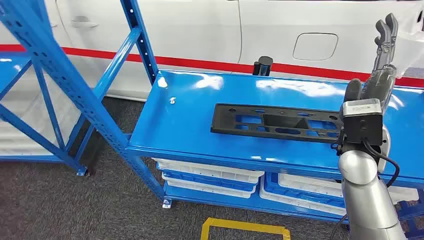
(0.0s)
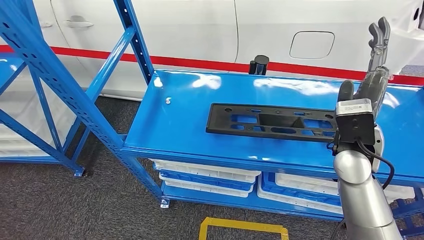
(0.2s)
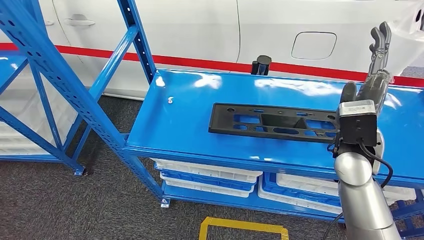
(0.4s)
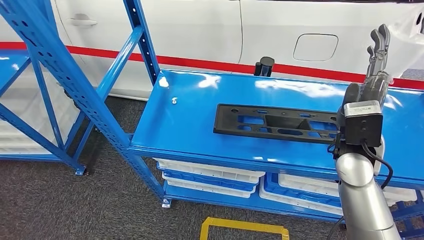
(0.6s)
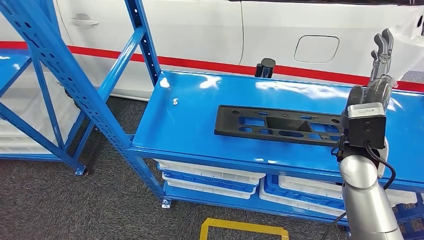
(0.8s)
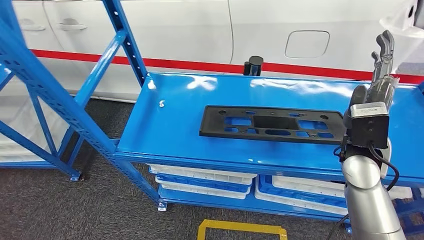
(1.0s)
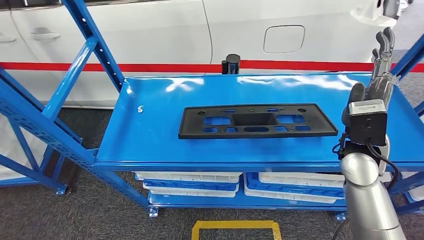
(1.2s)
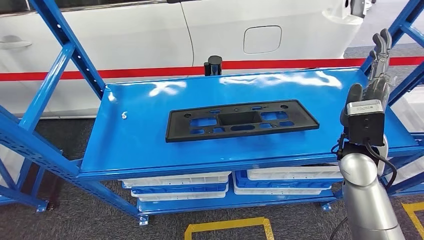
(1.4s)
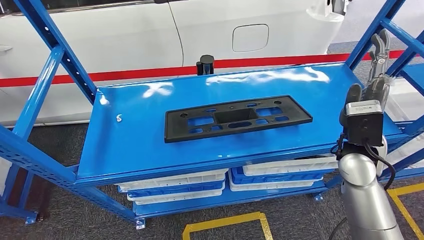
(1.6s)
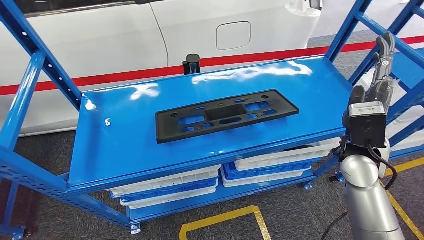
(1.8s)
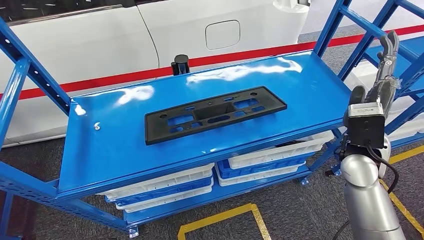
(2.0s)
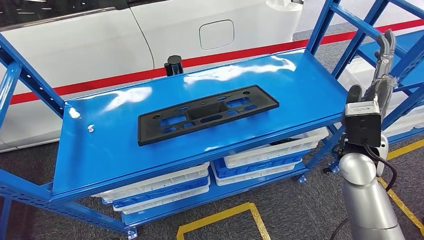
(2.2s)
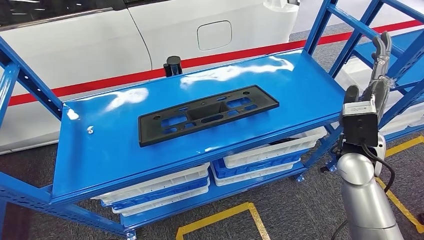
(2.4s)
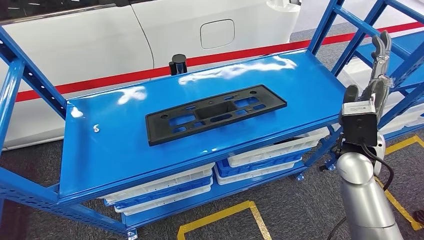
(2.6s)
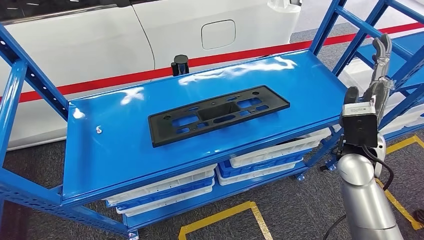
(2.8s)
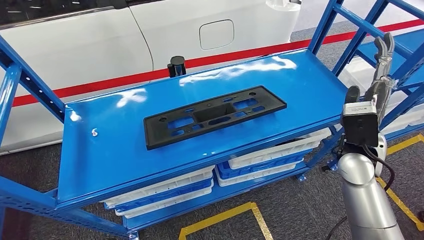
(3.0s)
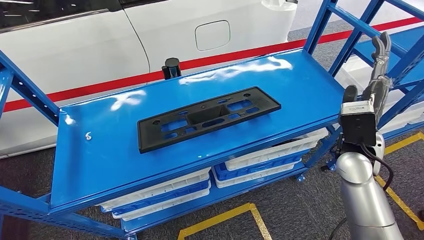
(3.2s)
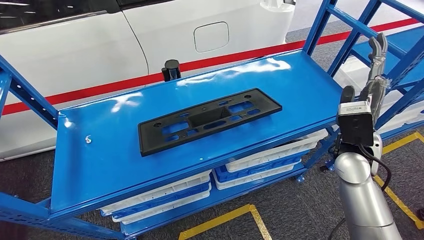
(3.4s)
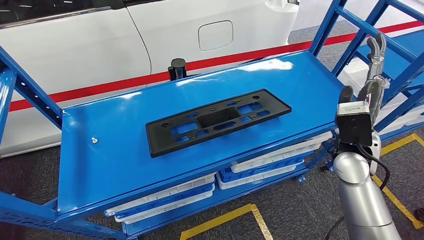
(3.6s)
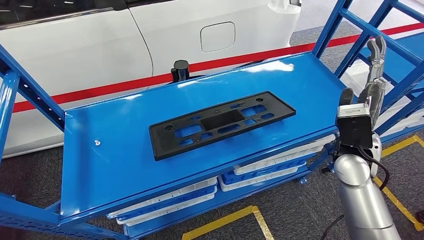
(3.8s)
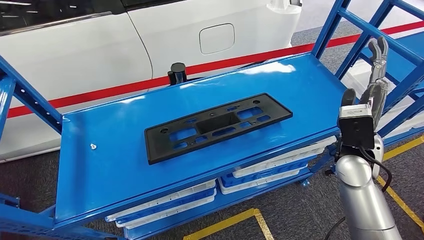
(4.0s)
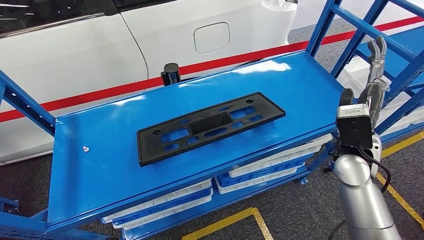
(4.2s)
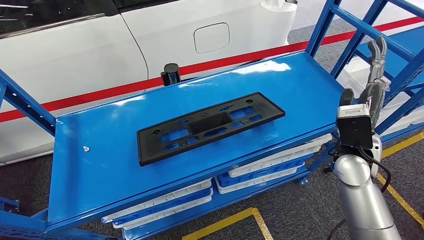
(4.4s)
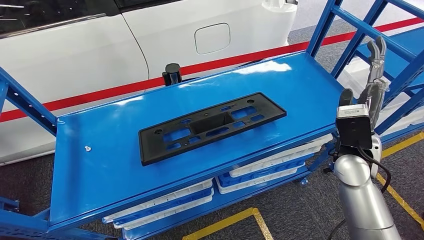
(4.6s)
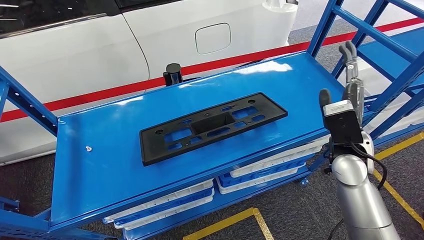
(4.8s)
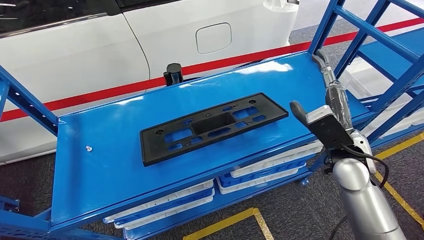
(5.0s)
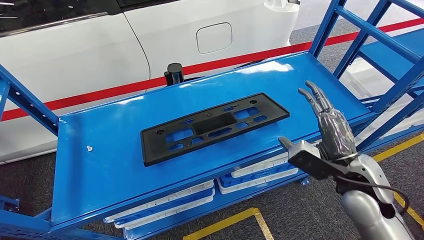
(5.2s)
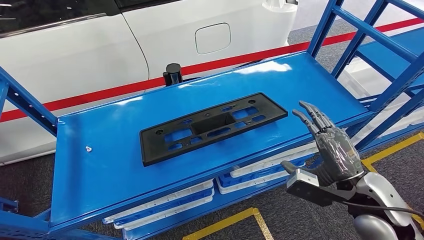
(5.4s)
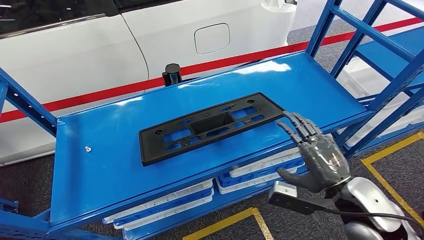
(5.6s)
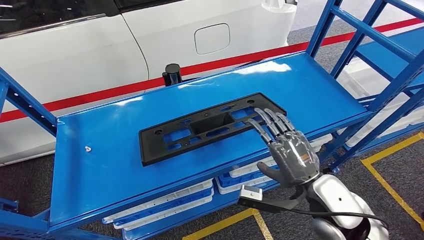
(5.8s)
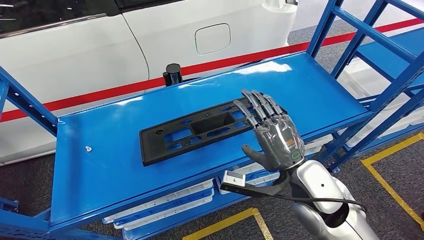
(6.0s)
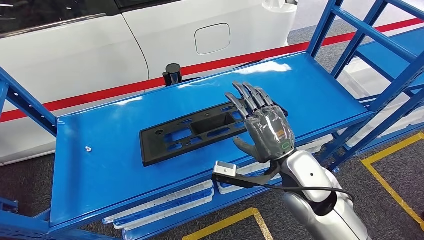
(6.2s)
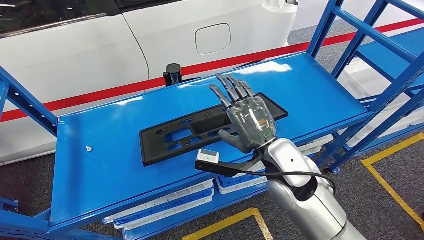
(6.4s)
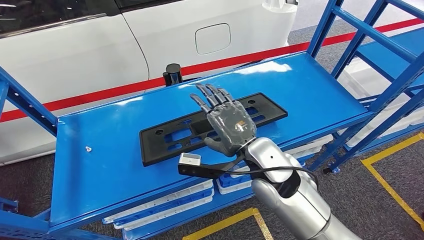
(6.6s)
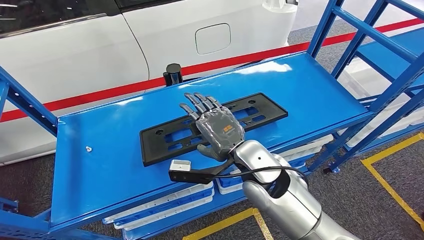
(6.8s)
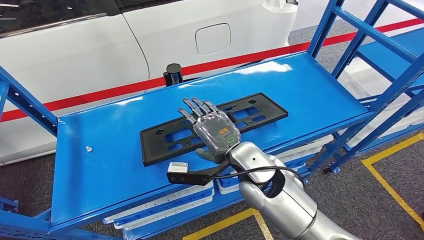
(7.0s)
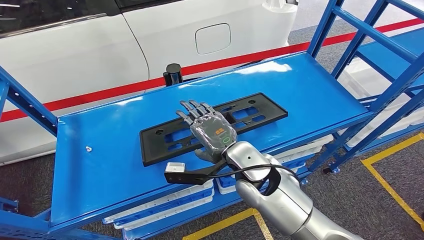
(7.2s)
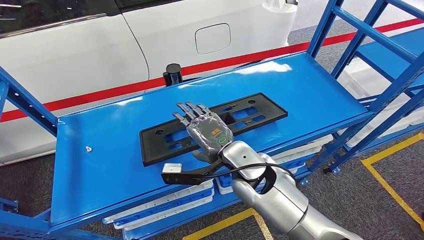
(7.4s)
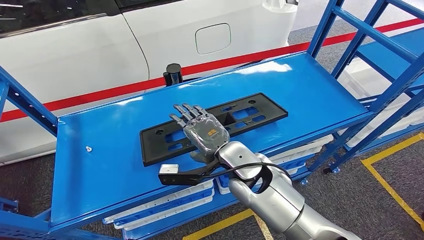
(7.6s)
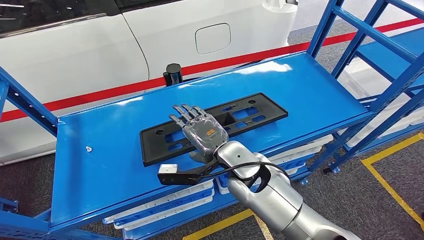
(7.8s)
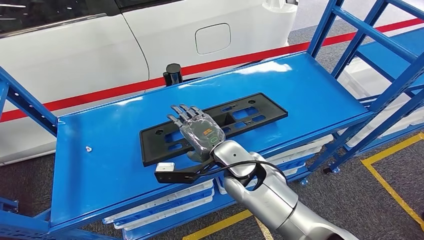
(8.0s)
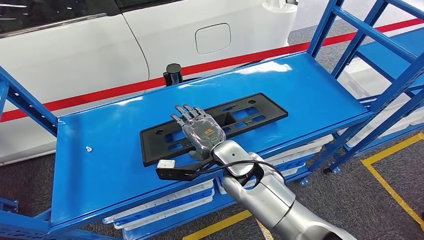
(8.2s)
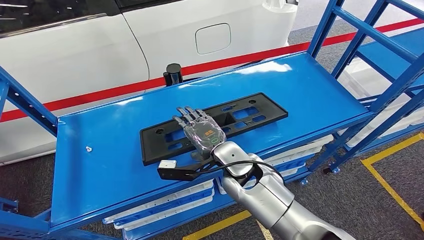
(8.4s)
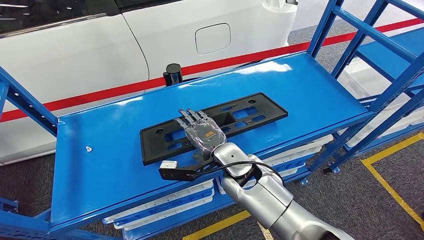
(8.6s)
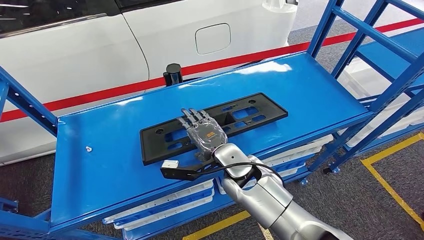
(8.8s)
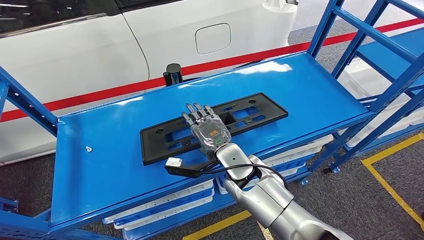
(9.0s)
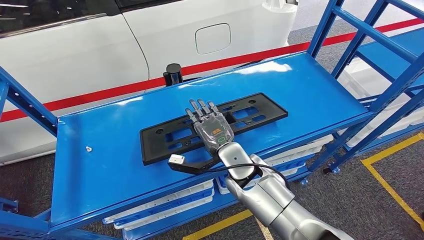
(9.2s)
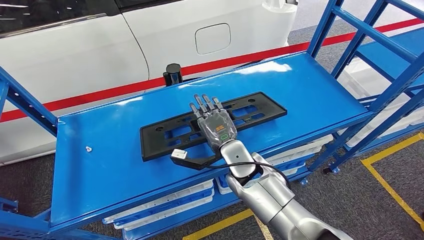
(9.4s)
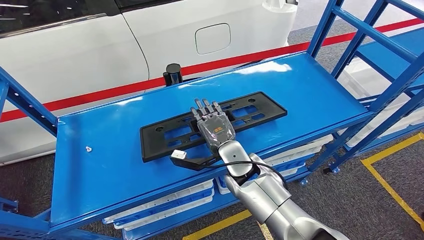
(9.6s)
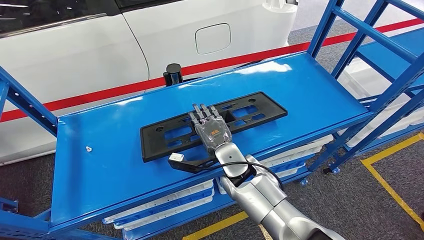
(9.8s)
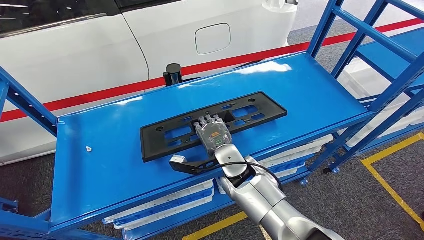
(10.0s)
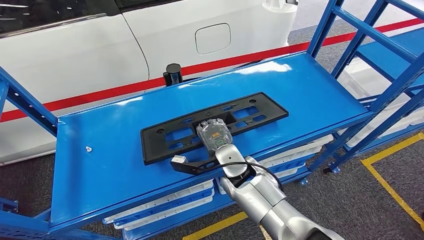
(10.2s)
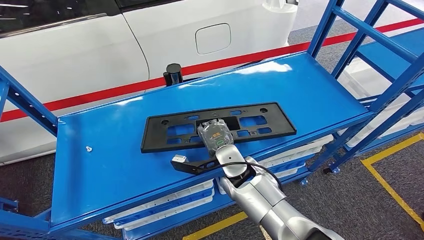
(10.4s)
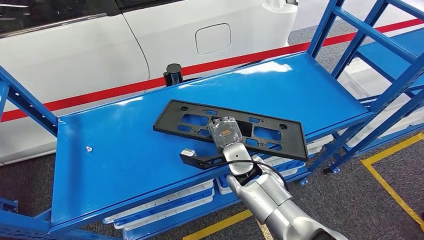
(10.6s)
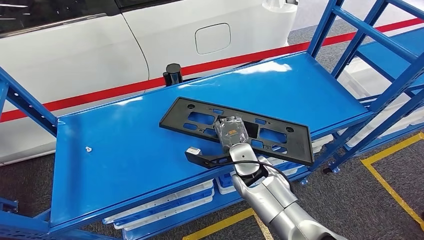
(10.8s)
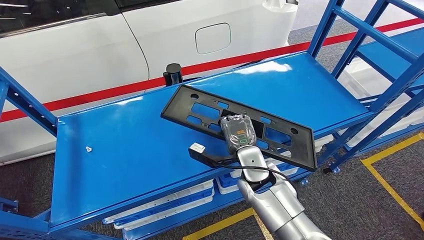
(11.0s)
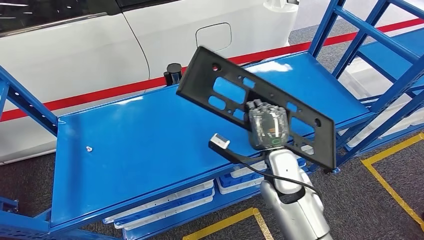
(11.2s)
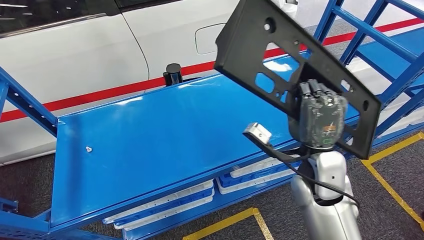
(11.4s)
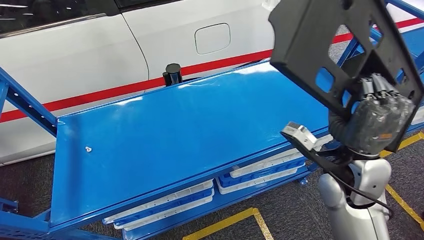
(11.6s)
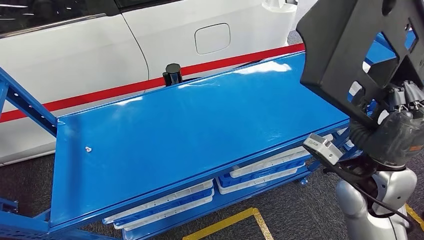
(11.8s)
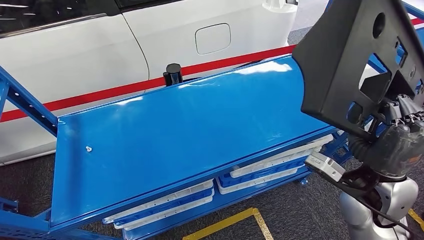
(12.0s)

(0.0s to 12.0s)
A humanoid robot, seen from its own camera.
4.4s - 6.0s: The right hand moves to the left and backward, approximately 15 cm; the left hand travels to the right by roughly 10 cm.
6.0s - 7.6s: The right hand goes some 15 cm to the left.
7.6s - 9.0s: There are only small adjustments of the hands.
9.0s - 10.4s: The hands stay close to where they were, moving slightly.

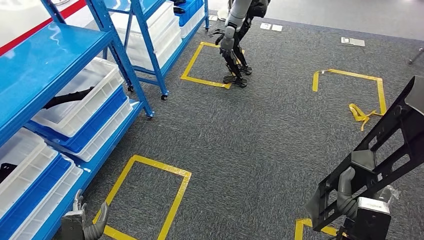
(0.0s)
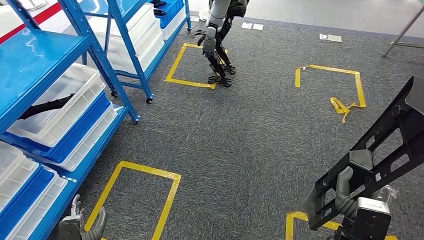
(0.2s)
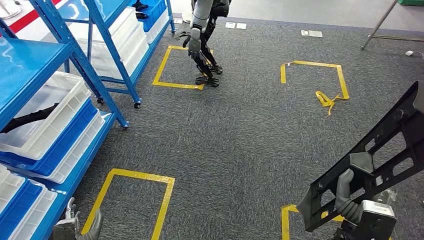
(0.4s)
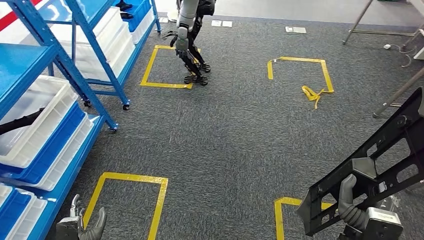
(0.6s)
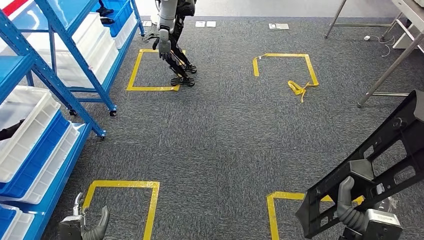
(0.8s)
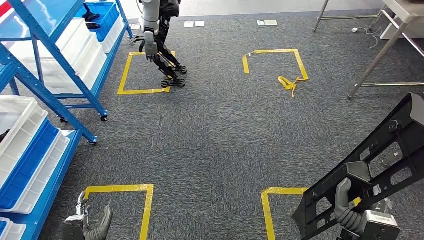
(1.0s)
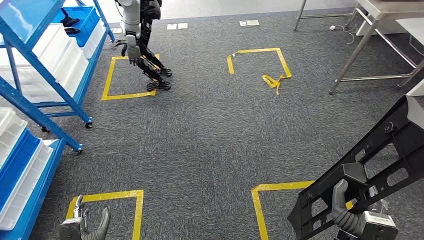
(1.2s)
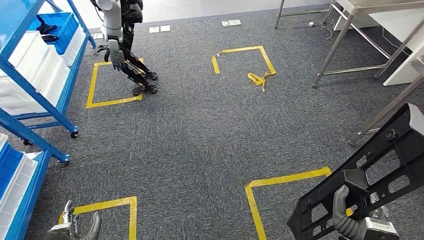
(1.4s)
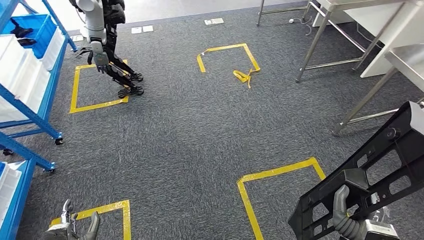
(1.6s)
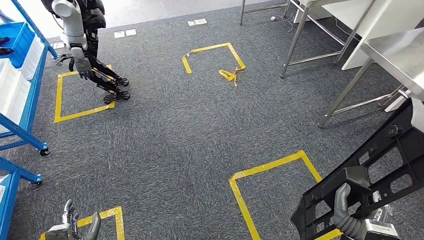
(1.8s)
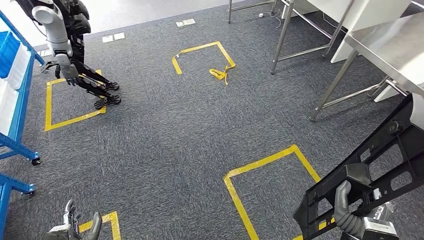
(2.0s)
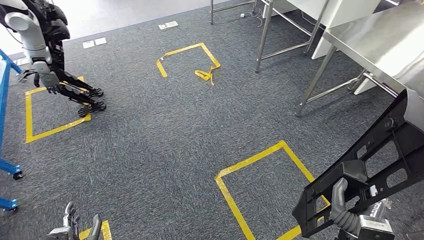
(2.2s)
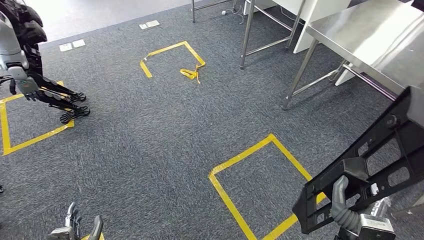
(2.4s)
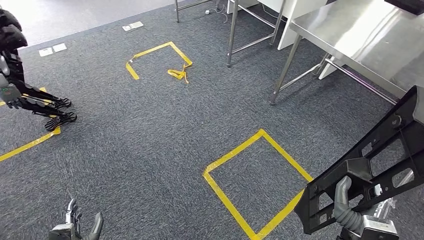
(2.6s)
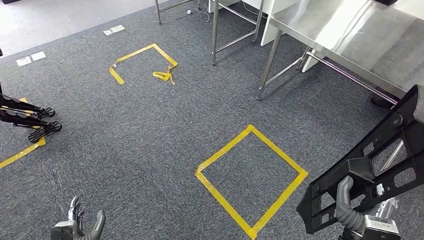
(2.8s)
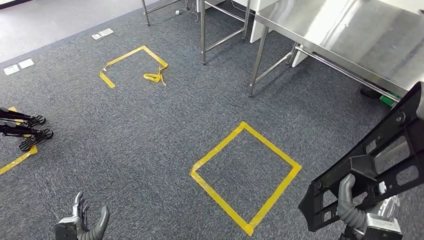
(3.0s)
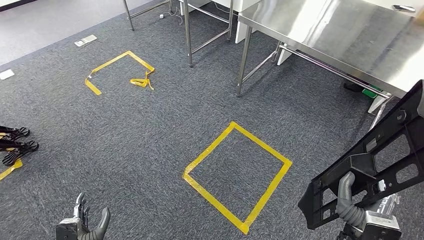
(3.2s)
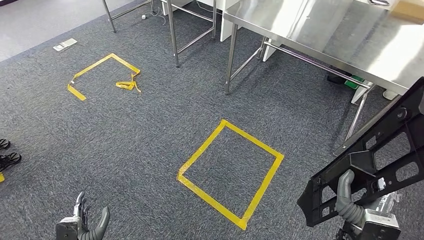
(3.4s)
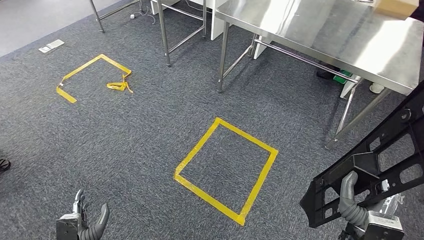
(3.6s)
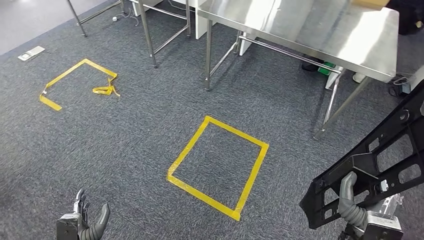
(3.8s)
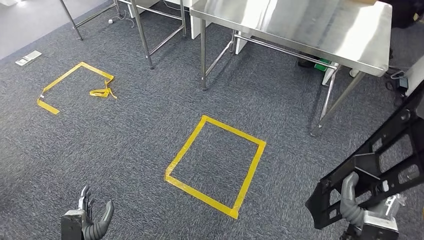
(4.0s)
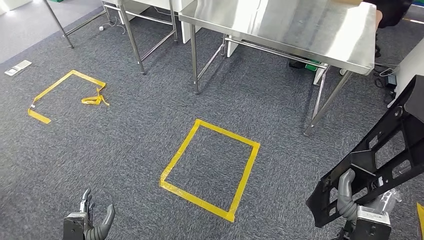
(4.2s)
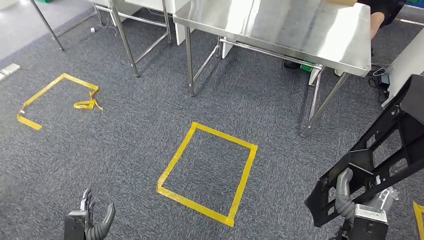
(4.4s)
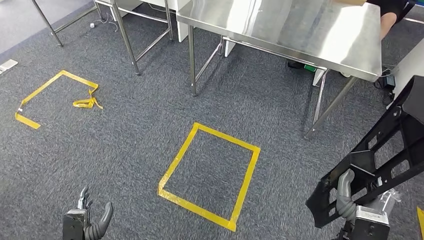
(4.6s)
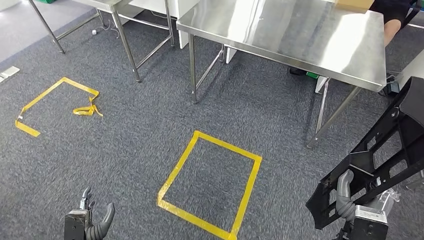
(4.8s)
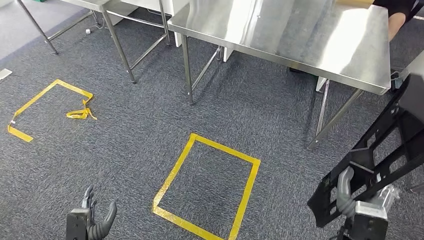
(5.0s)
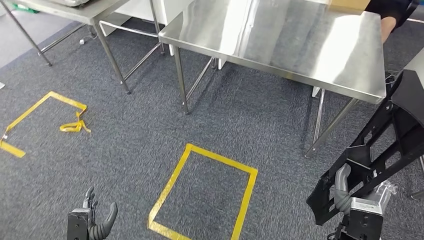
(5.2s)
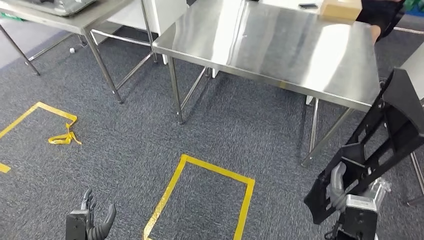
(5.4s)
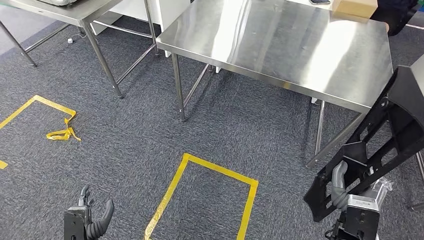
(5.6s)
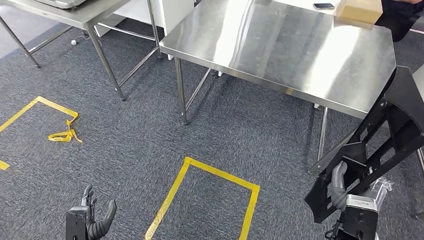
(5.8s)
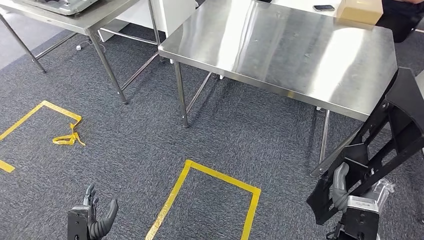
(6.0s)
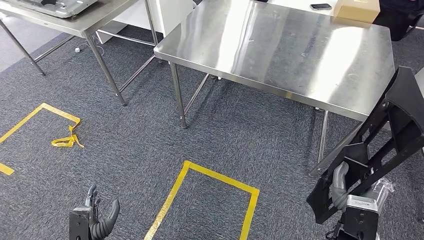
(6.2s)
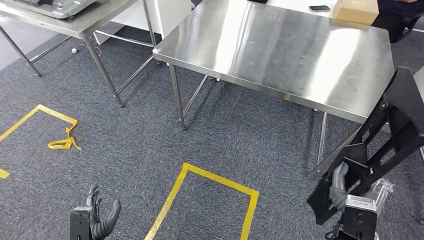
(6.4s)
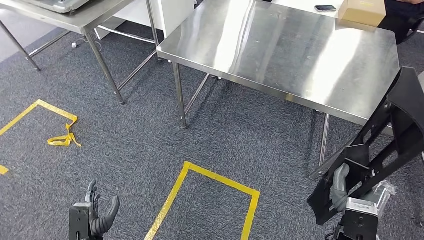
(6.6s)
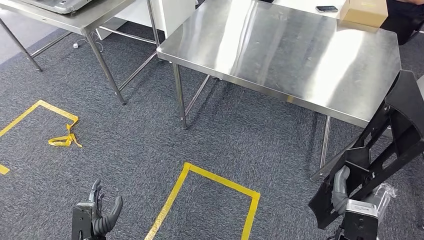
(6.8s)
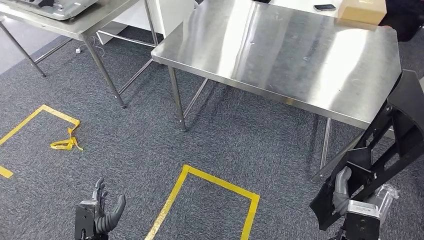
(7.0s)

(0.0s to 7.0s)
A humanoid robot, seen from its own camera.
Step, 0.0s - 6.8s: Move the large material to the workbench.
